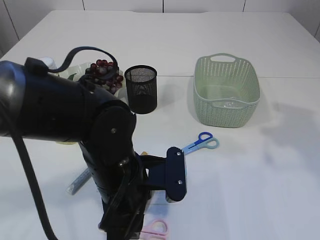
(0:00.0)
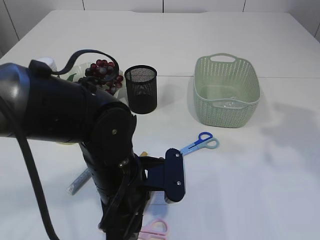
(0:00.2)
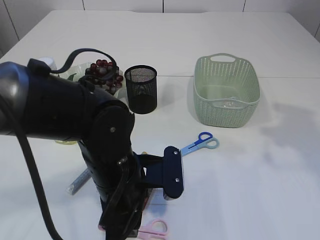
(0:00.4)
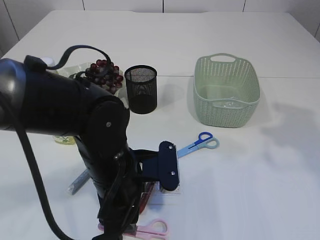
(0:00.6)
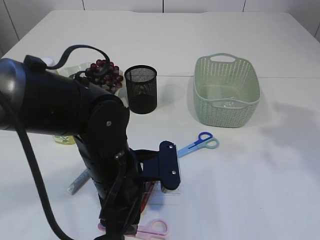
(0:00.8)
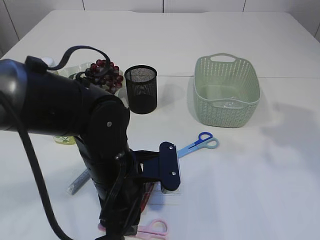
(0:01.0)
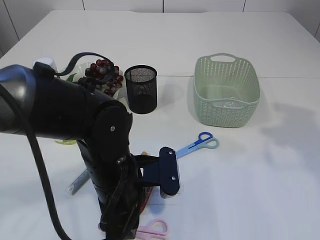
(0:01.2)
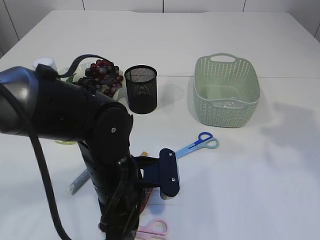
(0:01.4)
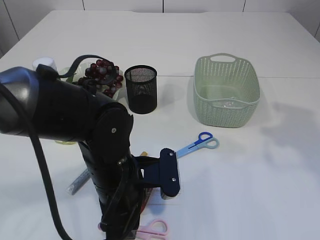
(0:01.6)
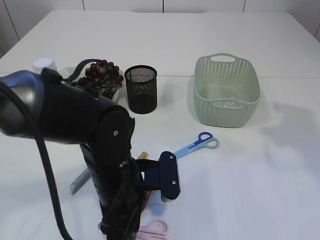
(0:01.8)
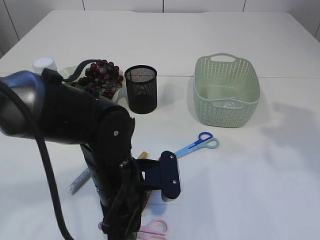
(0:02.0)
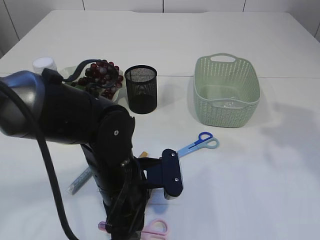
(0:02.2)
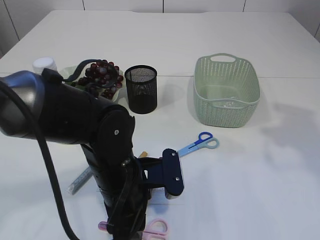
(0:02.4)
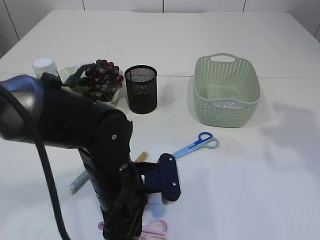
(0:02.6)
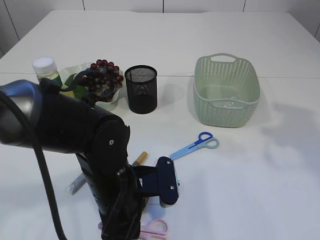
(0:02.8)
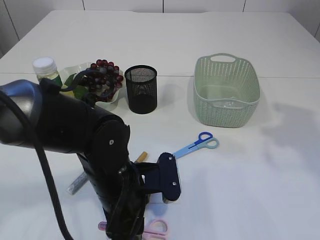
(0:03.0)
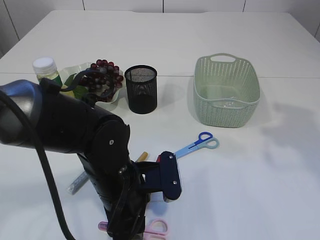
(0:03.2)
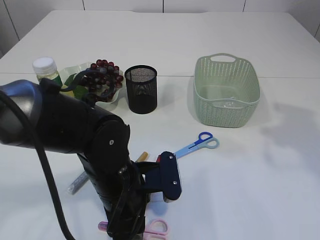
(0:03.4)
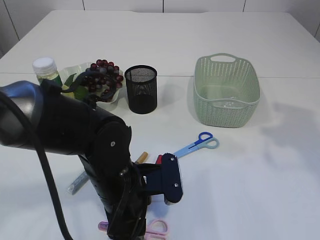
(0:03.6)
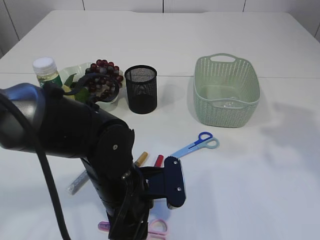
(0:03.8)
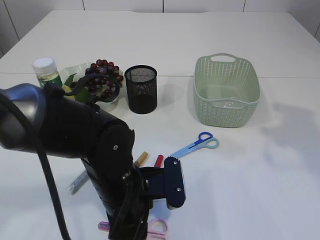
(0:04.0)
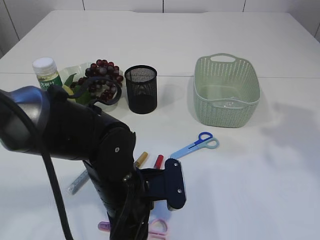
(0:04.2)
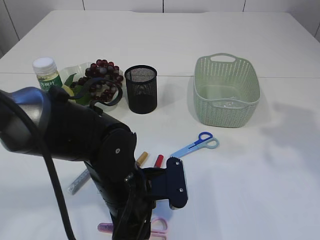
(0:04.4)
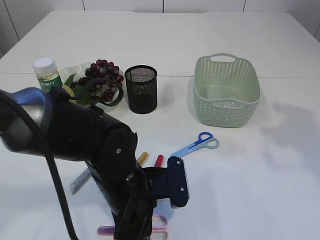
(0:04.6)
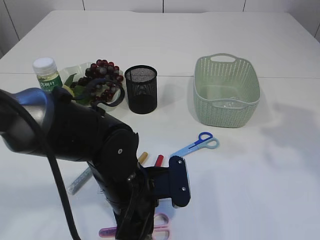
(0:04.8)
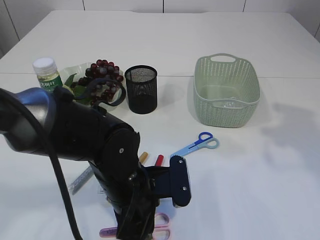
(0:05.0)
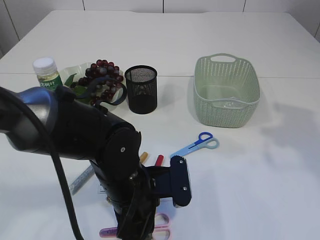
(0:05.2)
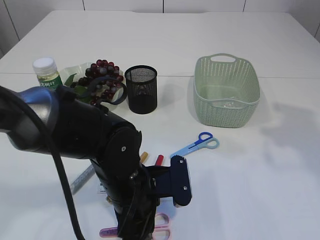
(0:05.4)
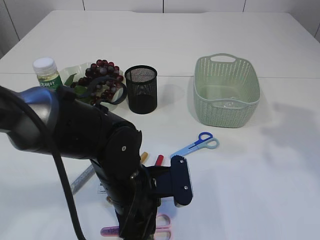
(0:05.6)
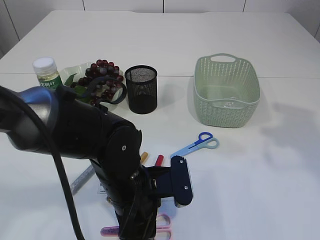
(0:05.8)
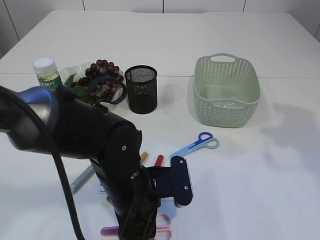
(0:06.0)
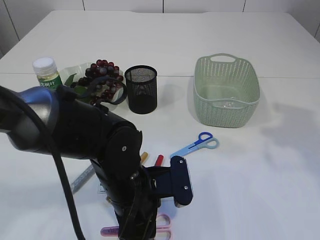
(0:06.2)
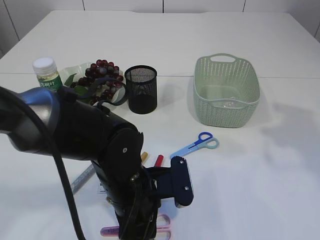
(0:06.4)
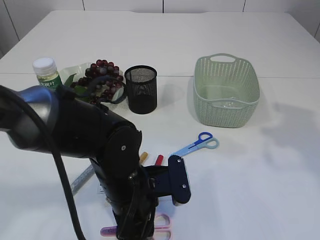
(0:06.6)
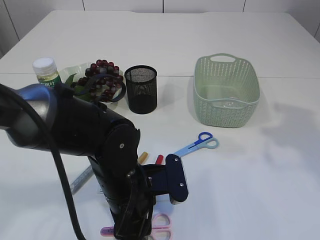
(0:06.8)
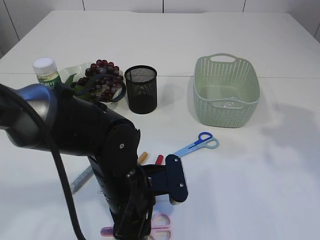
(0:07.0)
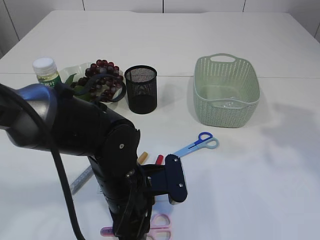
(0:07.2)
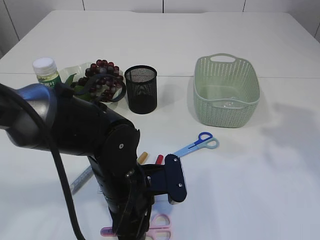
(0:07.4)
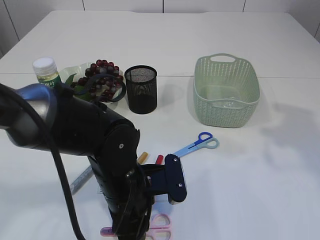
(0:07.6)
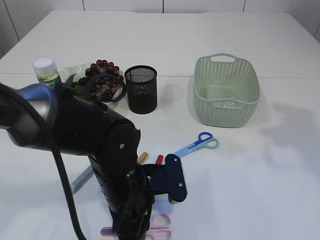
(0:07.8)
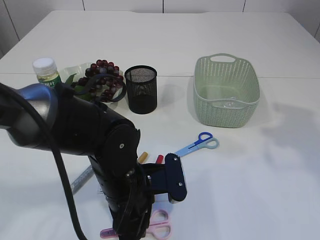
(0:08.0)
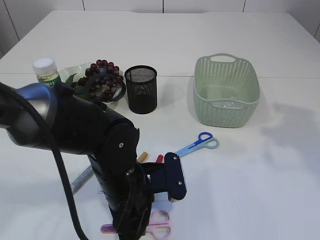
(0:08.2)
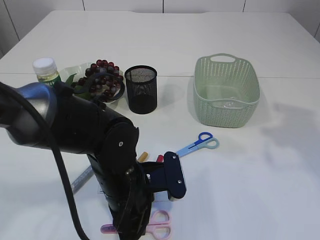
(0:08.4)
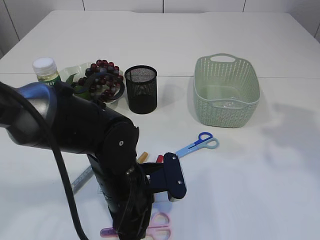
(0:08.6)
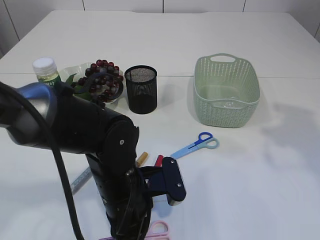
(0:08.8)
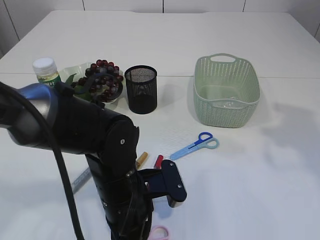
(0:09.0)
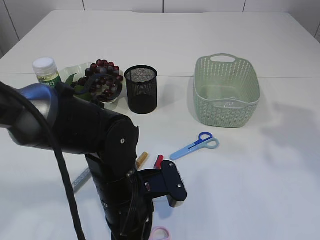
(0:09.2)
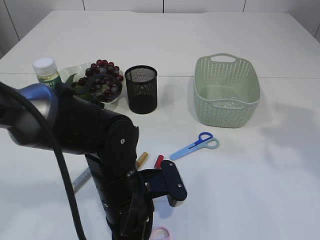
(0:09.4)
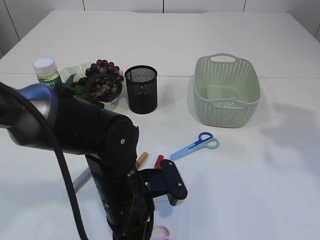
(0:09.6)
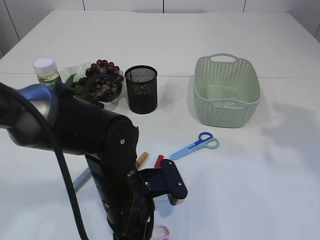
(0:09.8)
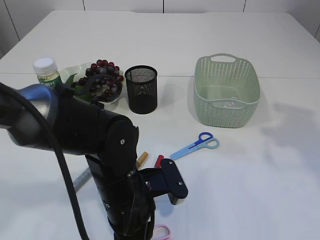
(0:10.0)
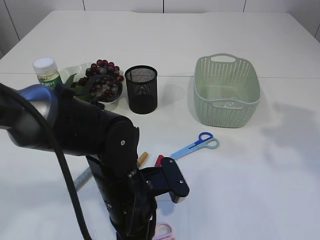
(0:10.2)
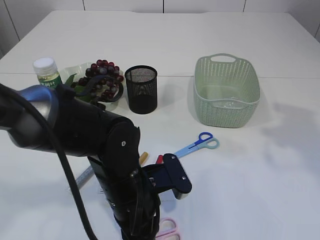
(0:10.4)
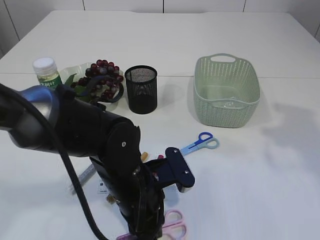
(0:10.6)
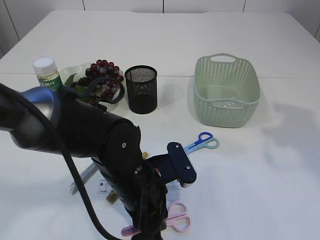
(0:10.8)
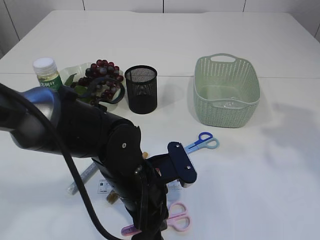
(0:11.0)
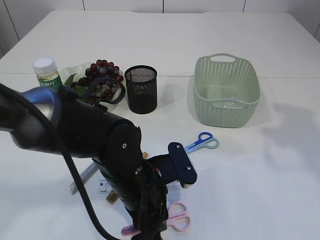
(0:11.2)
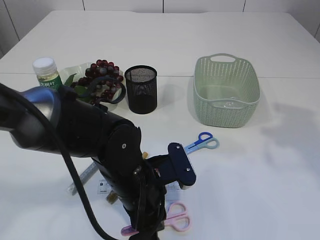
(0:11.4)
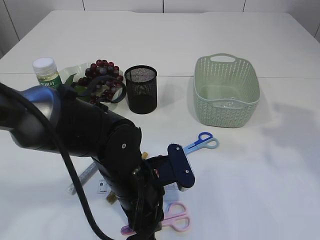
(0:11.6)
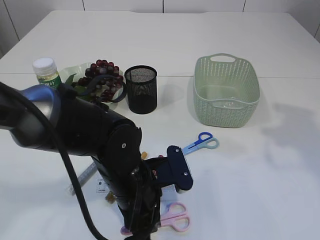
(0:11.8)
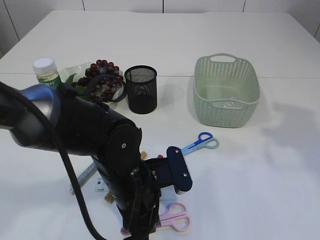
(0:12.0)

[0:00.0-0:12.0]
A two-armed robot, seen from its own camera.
0:00.0 to 0:03.0: The grippers make only small movements.
0:03.0 to 0:04.4: Both grippers stay about where they are.
0:04.4 to 0:06.0: Neither gripper changes place.
0:06.0 to 0:07.6: Both grippers stay about where they are.
0:07.6 to 0:12.0: The grippers stay close to where they were, moving slightly.

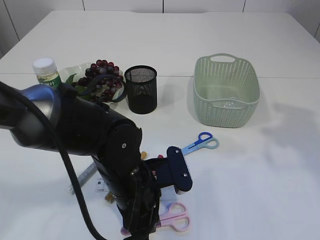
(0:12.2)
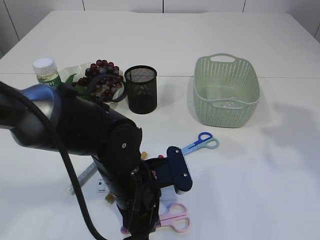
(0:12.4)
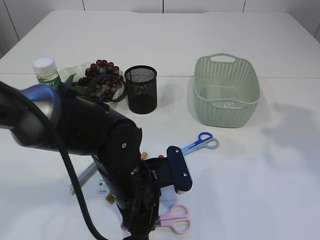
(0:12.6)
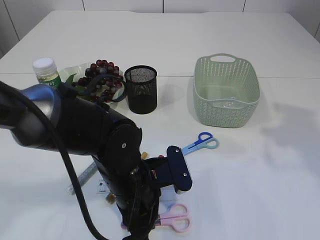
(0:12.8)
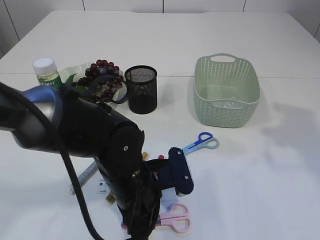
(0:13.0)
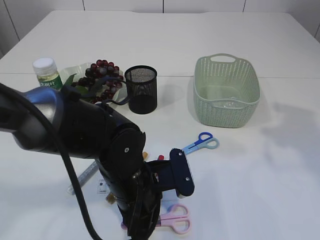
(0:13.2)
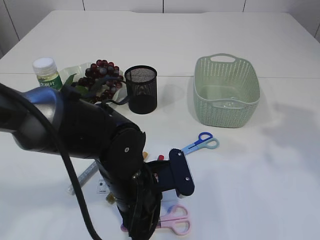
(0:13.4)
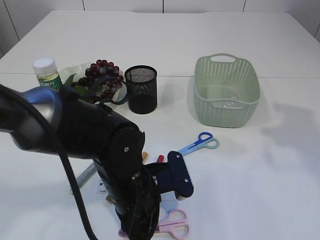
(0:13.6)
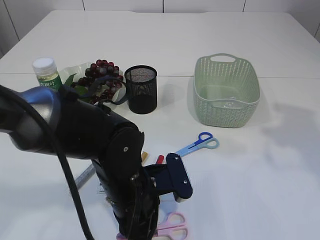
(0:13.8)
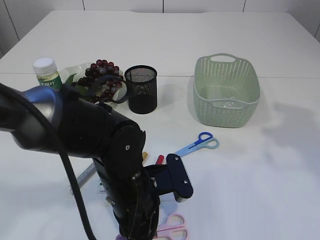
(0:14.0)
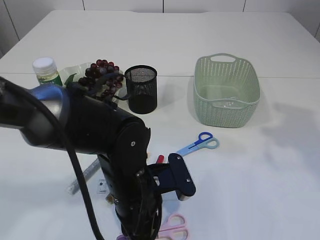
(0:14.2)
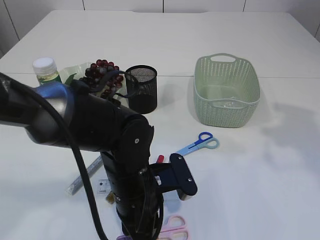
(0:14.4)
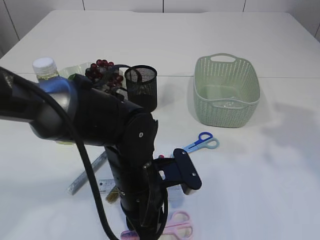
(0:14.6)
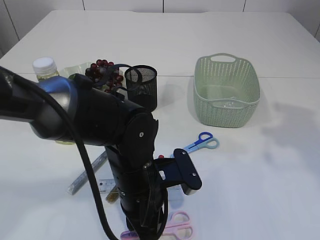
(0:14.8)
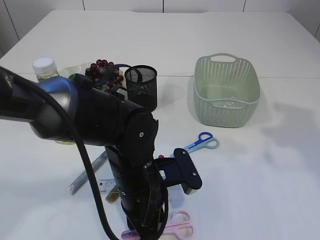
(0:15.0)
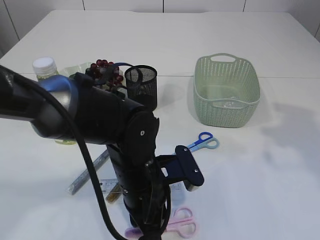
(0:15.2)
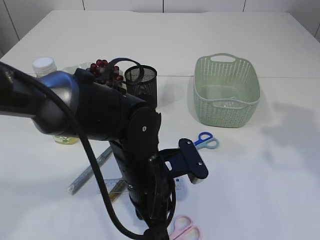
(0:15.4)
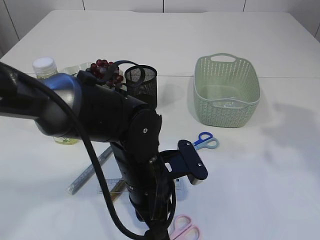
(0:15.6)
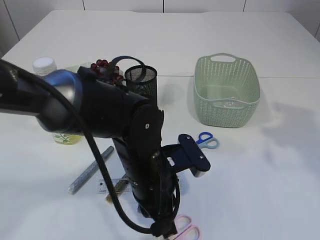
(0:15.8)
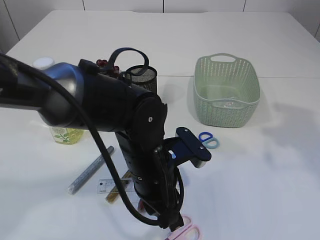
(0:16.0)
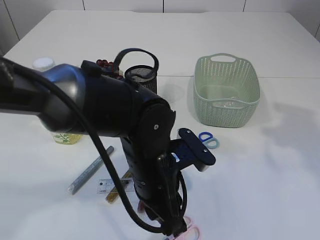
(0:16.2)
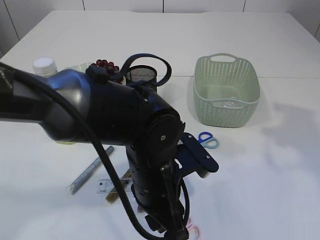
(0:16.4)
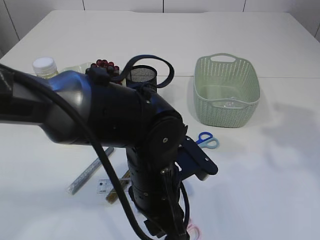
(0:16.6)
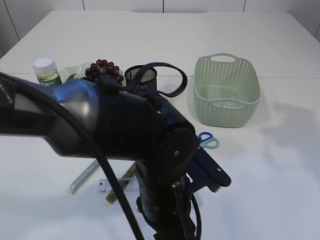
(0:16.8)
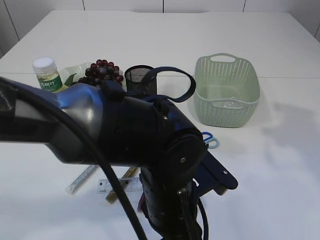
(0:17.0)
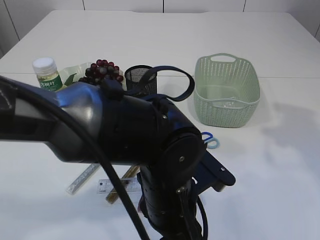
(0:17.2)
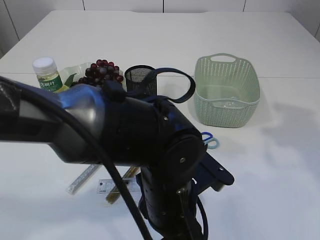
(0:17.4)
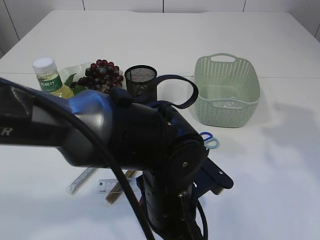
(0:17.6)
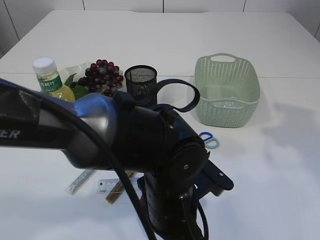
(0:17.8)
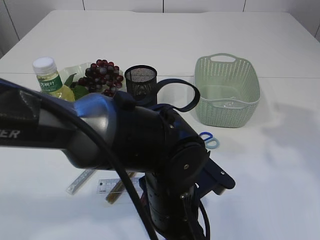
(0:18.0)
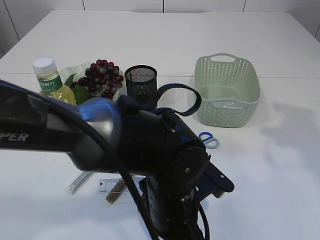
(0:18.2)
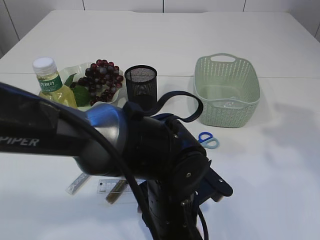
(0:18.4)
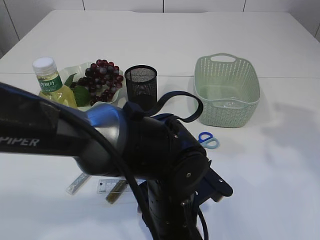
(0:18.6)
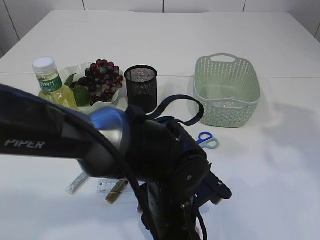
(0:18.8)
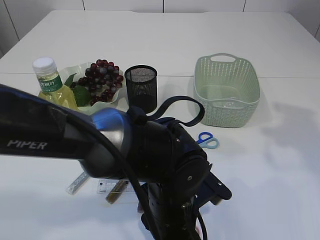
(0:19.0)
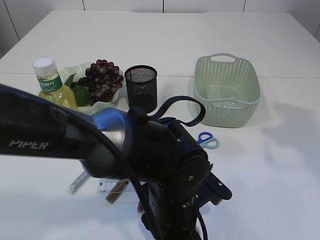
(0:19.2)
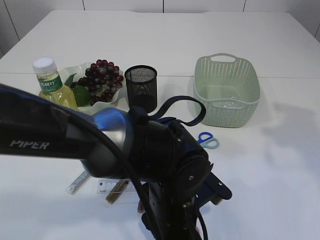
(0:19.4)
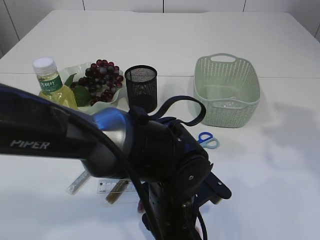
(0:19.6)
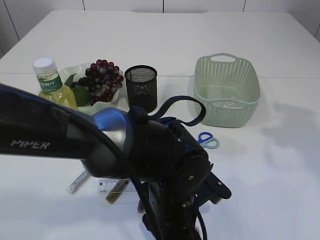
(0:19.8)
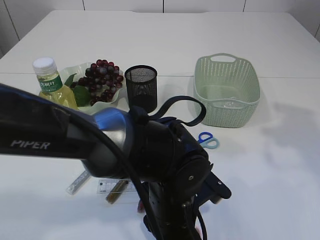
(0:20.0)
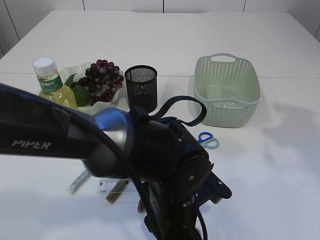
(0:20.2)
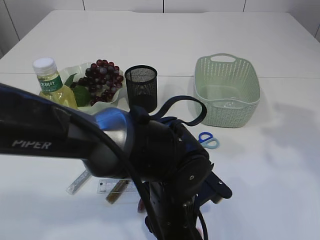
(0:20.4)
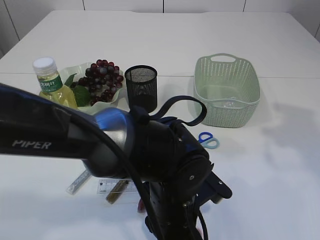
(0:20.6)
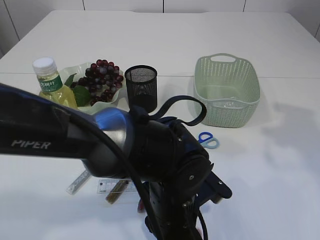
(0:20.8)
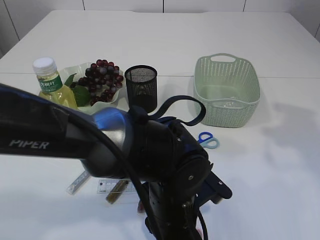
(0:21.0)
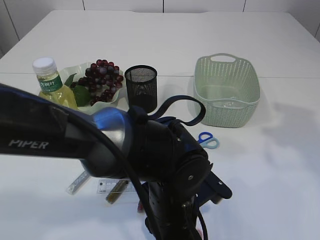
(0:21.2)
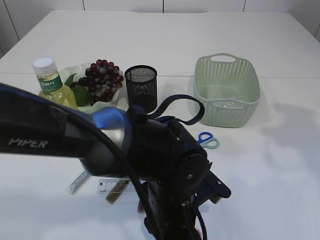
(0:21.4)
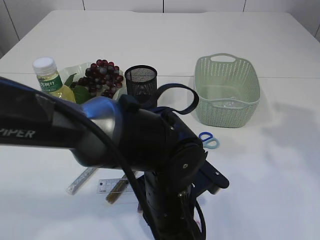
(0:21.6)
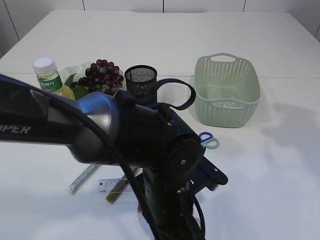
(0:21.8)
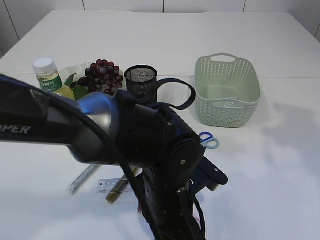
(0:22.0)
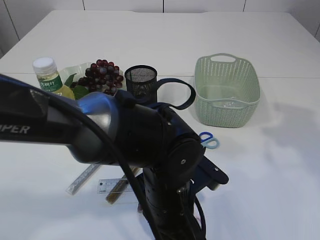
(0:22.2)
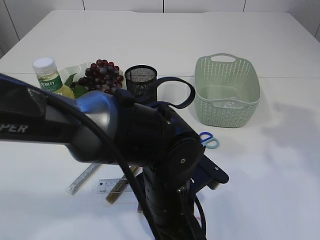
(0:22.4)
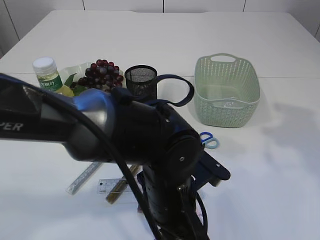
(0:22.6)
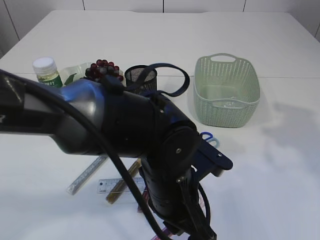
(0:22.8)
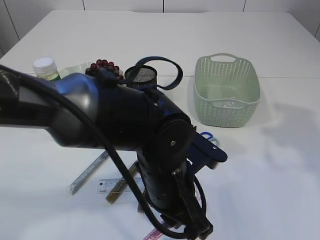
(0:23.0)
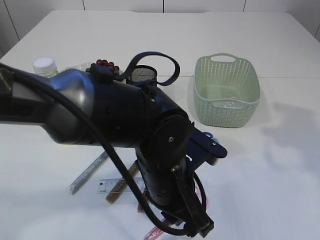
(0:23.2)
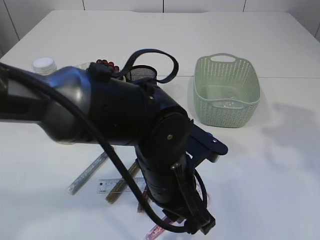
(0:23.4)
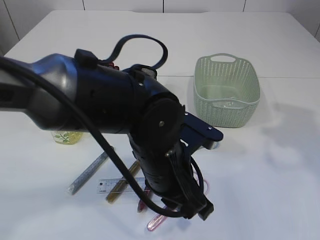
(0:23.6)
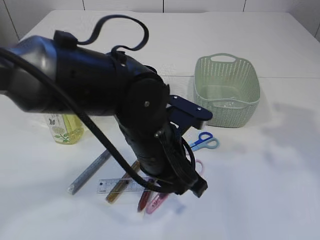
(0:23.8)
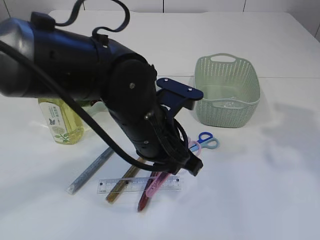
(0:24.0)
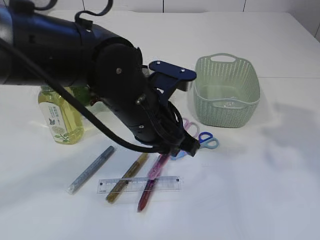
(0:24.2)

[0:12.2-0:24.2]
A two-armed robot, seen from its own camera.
Step, 0:12.2 to 0:23.0: pick up the pink scissors.
0:12.2 to 0:13.8: The two grippers keep their place.
0:13.8 to 0:15.2: There are only small adjustments of the grippers.
0:15.2 to 0:16.6: The left gripper opens its fingers.
0:16.6 to 0:19.8: The grippers stay close to where they were, moving slightly.
0:19.8 to 0:21.2: Neither gripper changes place.
0:21.2 to 0:22.6: The grippers stay close to where they were, moving slightly.
0:22.6 to 0:24.2: The left gripper is displaced upward and forward by about 10 cm.
